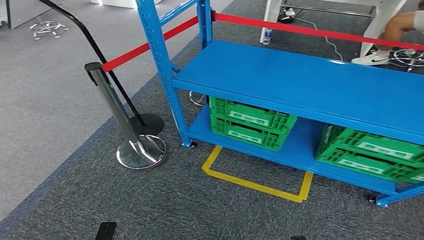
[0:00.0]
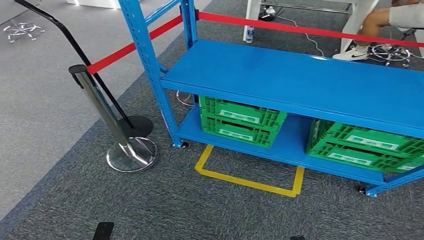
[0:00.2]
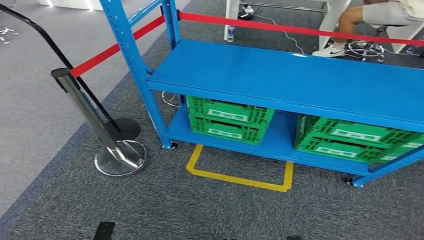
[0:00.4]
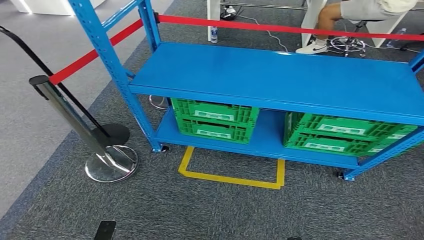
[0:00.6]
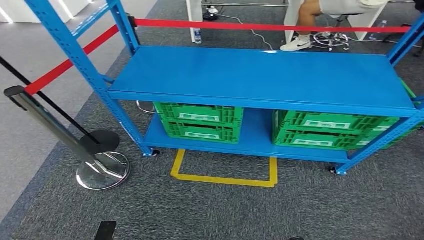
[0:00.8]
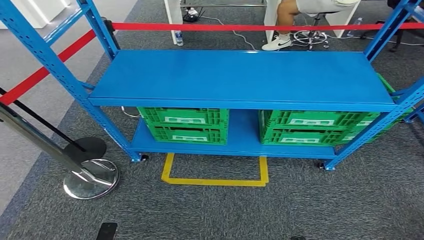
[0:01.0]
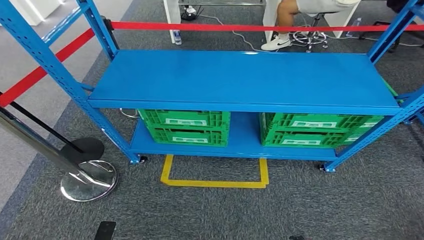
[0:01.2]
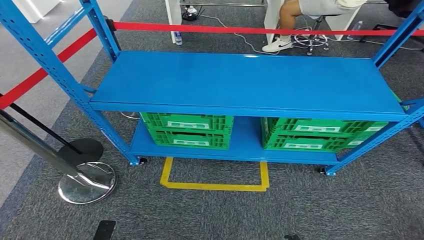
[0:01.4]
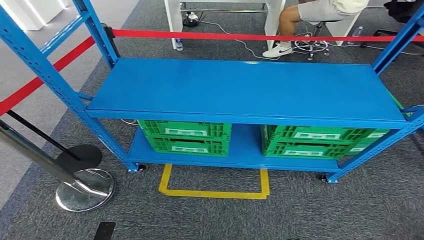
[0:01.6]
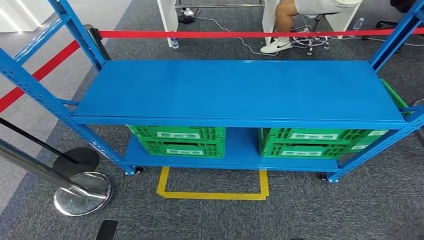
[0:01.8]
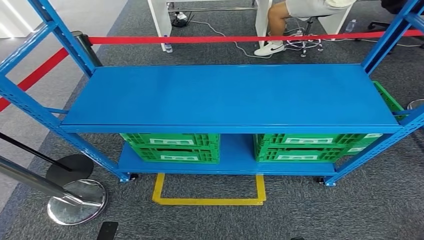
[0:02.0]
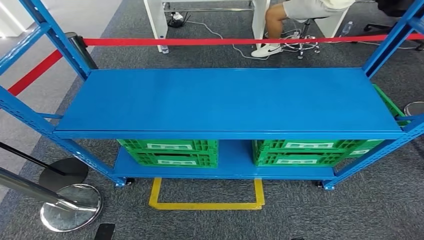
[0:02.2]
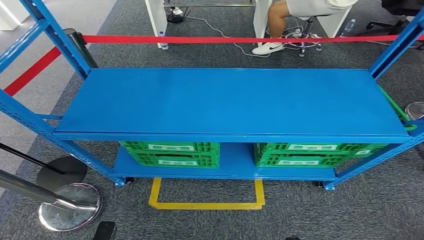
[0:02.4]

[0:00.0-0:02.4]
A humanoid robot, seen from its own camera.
Step, 0:00.0 to 0:02.4: Return to the initial position at the workbench.
